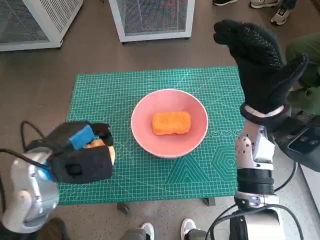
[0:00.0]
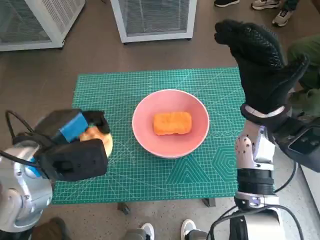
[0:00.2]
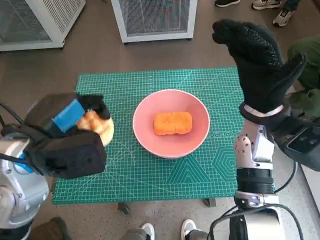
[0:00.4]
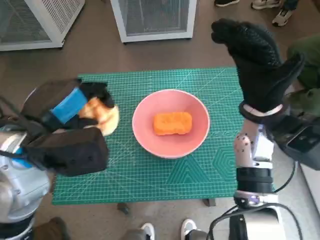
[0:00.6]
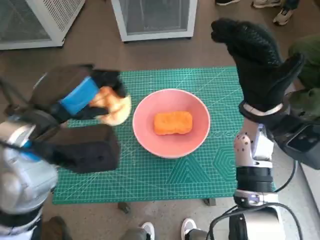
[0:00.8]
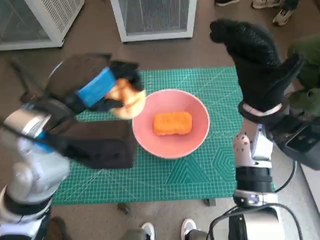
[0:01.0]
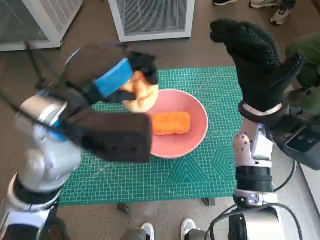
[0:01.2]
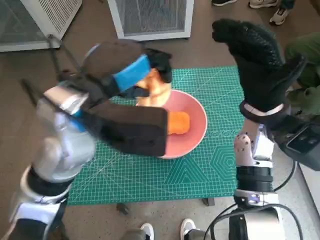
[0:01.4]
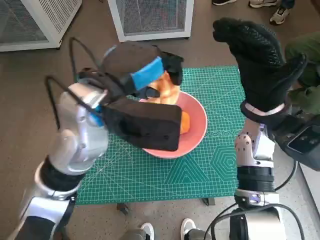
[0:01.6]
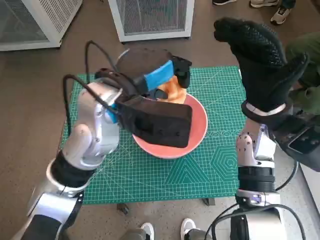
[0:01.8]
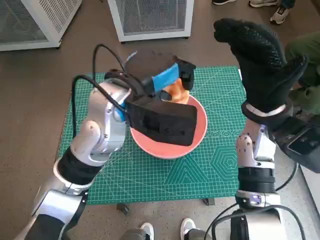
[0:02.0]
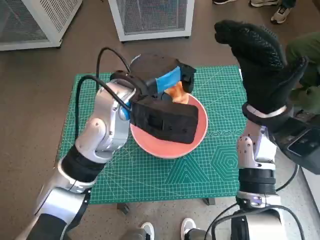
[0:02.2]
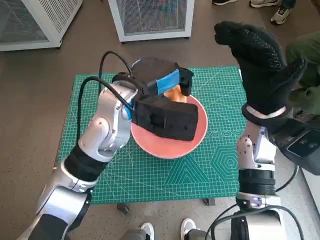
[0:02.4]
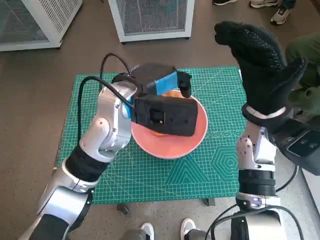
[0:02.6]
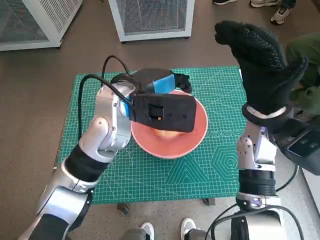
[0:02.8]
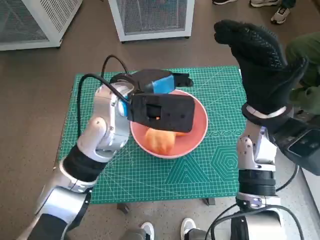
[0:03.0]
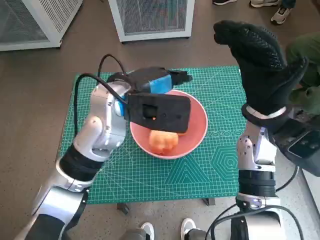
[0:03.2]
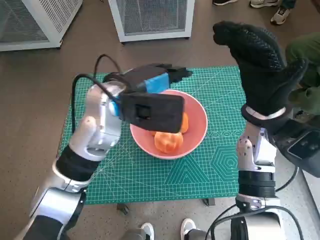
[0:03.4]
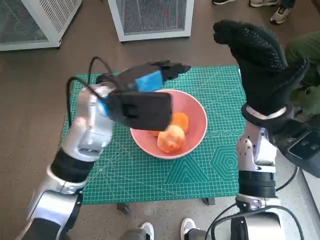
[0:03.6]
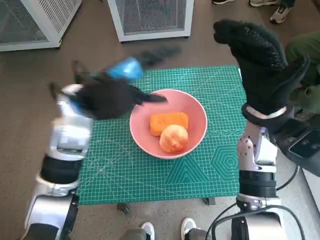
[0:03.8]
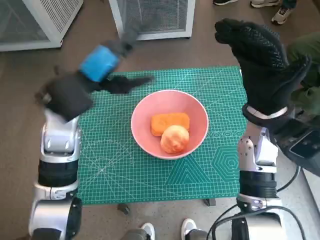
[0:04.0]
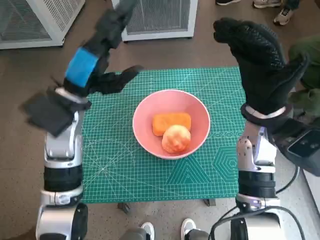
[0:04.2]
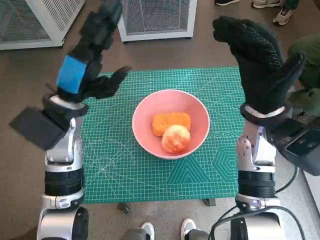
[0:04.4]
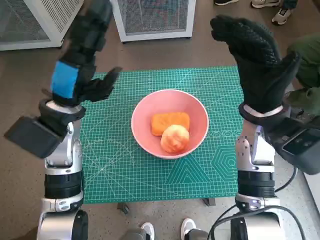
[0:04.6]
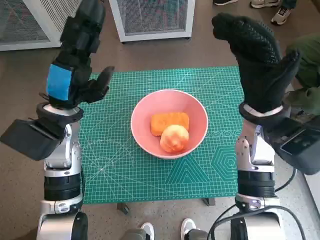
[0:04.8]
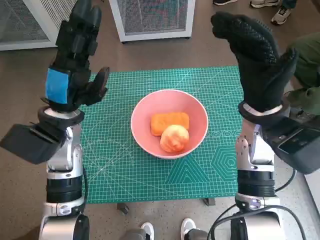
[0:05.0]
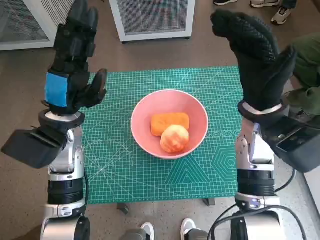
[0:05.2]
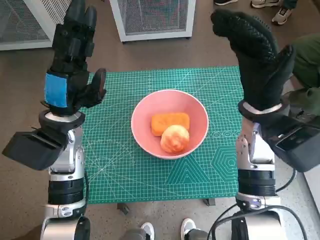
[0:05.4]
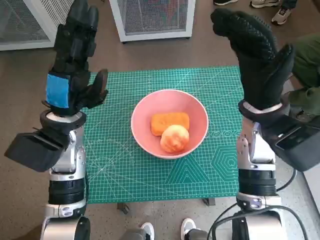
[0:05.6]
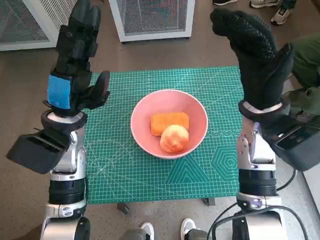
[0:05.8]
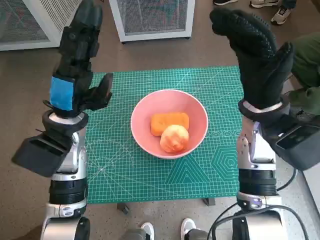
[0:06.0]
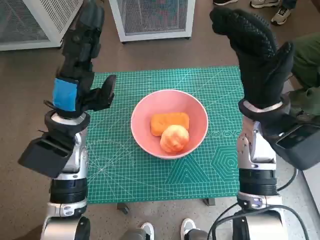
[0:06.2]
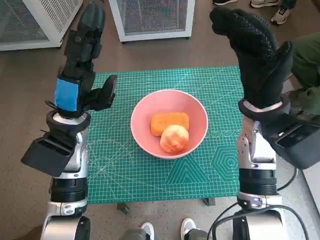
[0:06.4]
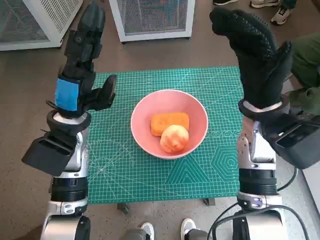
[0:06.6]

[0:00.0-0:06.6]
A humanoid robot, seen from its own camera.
Task of the whole recording: Push the bowl into the center of the table and put the bread into the bowl.
Step, 0:00.0 to 0:02.8: Place the round bread in pink bowl with left hand.
0:00.0 to 0:01.6: The left hand moves upward and to the right, some 15 cm.
0:01.6 to 0:03.2: The left hand moves roughly 5 cm.
0:03.2 to 0:05.0: The left hand is displaced to the left by roughly 10 cm.
0:05.0 to 0:06.6: The hands move only a little.

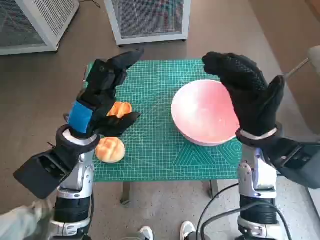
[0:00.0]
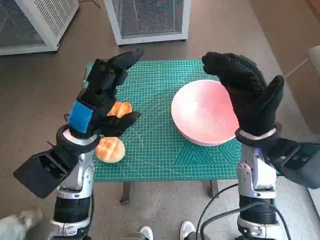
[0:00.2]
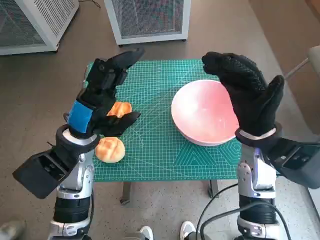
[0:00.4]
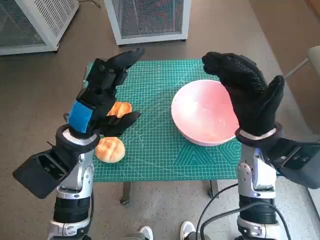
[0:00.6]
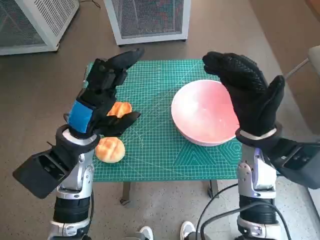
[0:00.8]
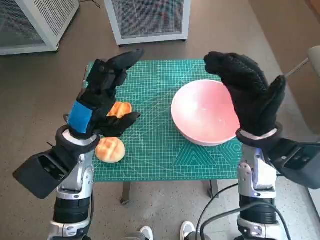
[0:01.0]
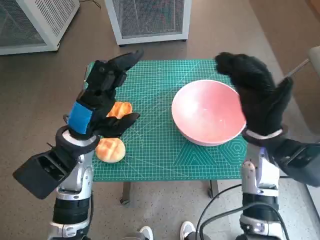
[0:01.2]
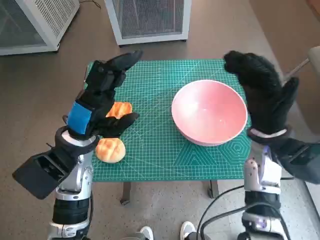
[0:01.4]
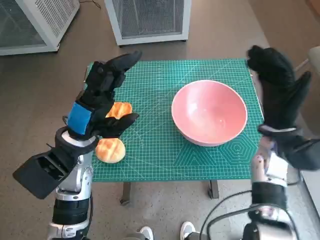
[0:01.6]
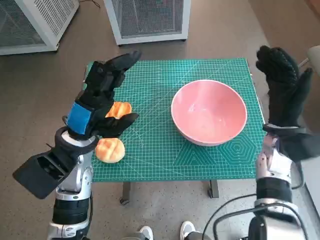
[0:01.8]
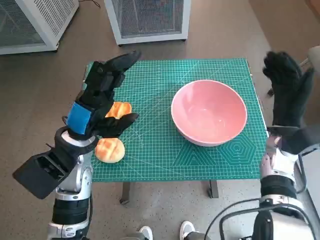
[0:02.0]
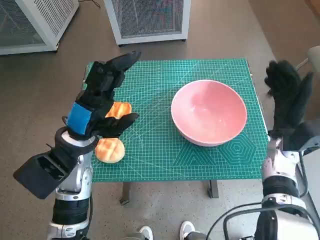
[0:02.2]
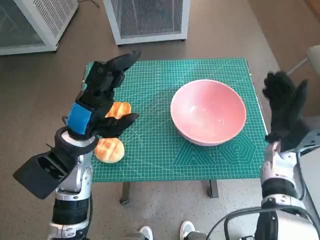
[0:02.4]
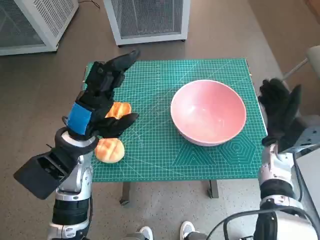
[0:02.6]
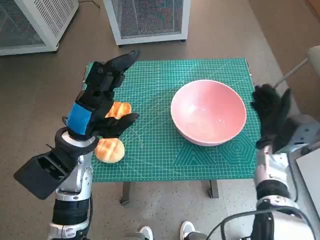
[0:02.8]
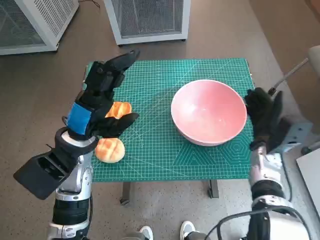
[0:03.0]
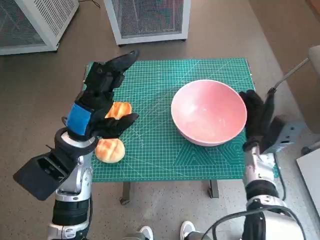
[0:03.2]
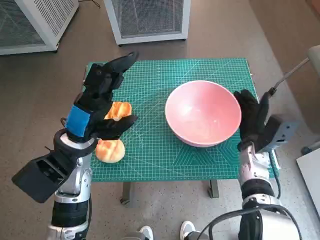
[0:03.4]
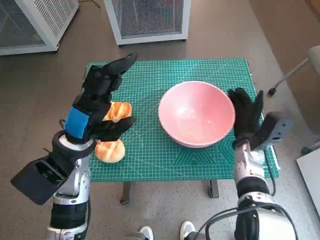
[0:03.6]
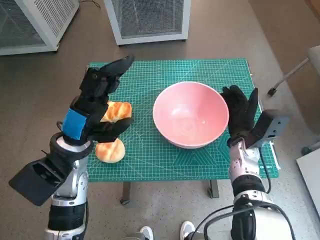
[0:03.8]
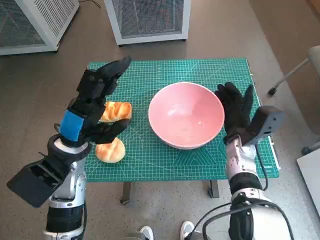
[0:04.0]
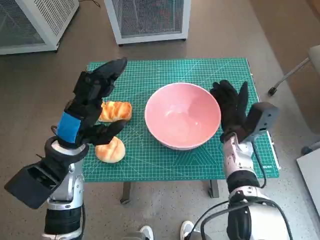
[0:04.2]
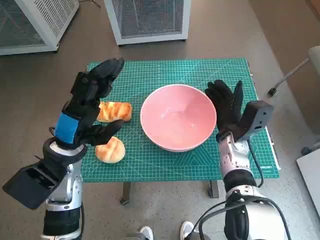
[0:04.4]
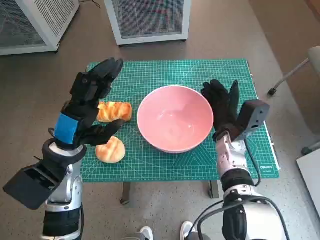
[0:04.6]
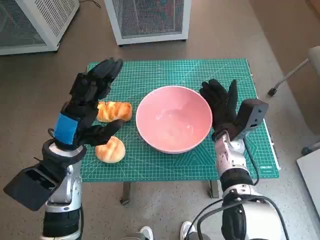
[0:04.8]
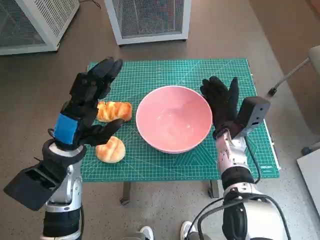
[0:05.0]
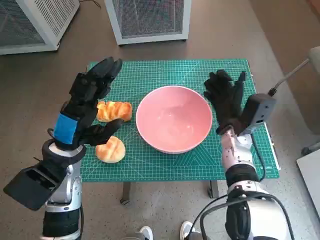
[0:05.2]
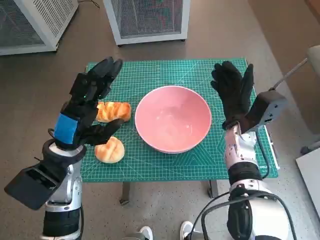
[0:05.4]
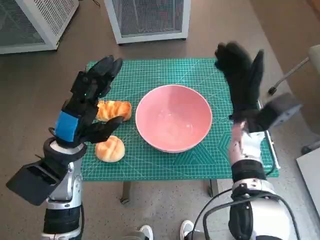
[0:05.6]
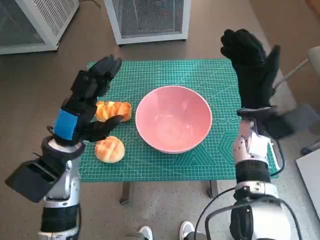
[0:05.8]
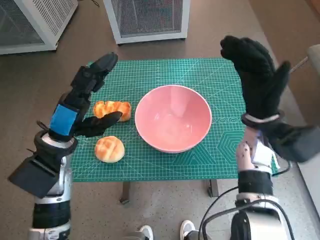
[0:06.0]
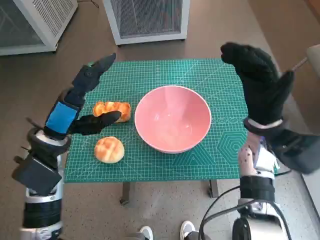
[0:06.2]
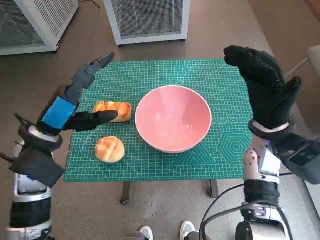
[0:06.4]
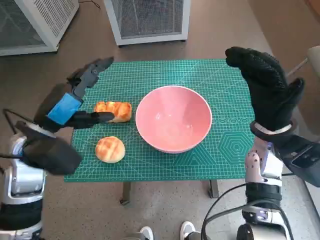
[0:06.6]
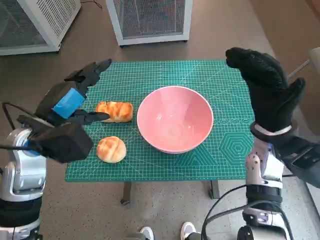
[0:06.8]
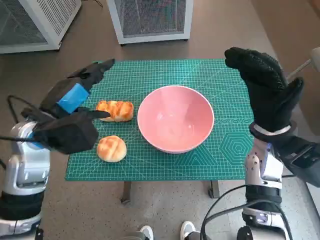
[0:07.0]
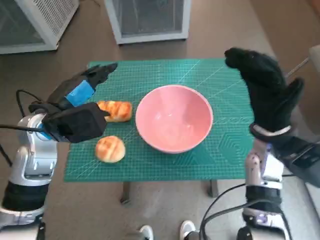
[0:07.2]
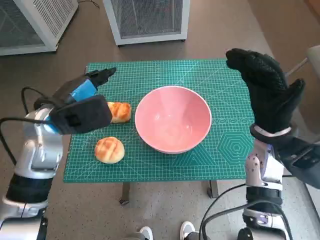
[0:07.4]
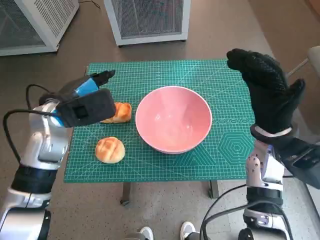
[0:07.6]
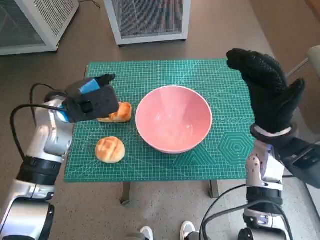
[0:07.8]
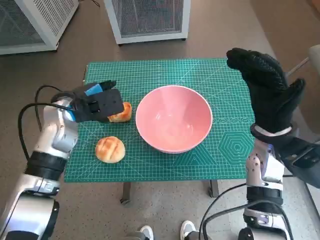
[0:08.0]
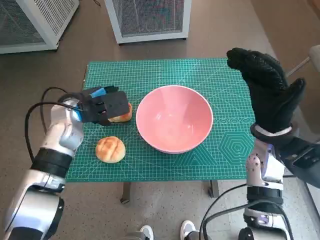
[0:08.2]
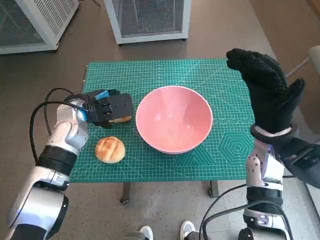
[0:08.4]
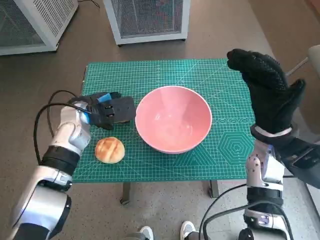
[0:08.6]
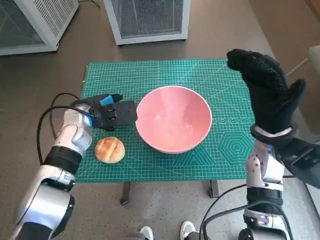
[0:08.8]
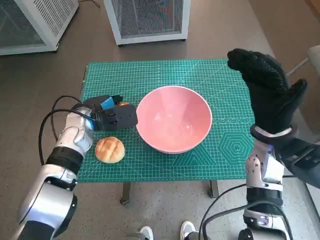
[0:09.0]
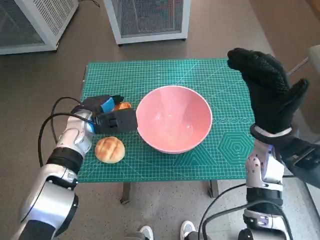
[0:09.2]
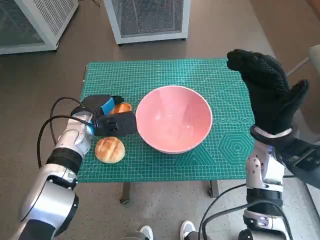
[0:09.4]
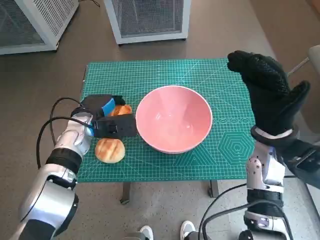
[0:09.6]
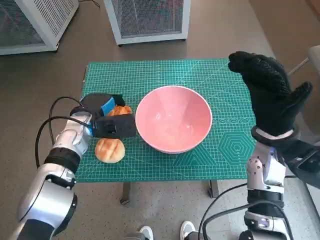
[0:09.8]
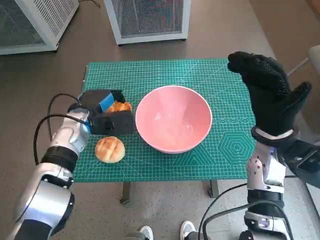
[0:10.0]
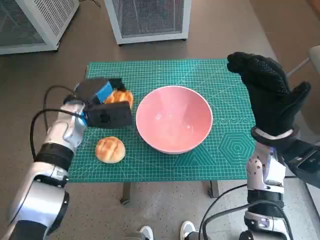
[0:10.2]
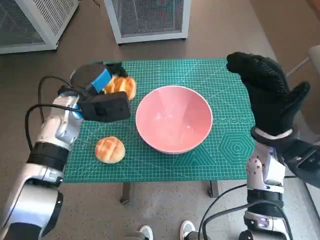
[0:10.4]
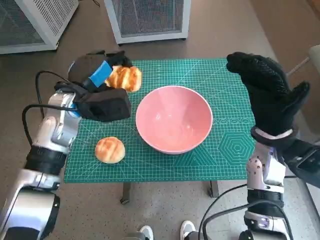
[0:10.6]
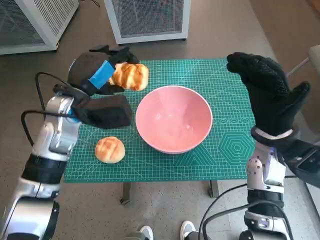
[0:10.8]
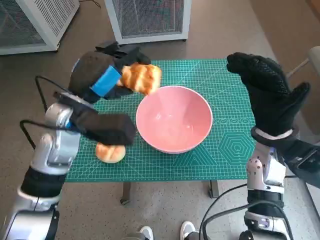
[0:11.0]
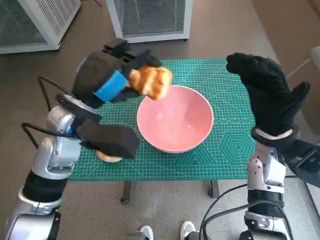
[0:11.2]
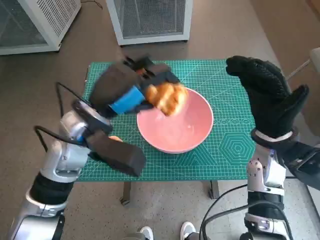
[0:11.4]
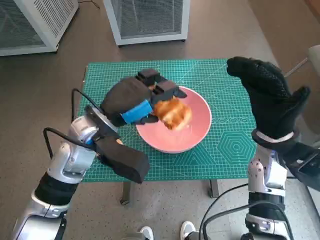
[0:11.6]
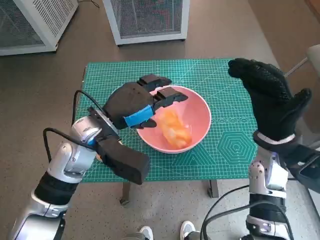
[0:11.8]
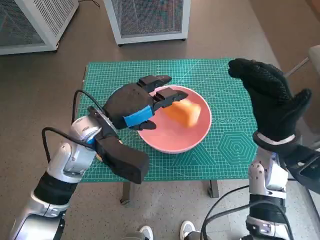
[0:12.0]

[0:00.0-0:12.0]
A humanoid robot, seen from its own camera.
Task of the whole recording: Push the bowl into the center of the table and put the bread into the bowl.
Step, 0:00.0 to 0:05.2: Move the pink bowl to the center of table with right hand.
Step, 0:05.4 to 0:09.4: Grasp the long bread with left hand.
Step, 0:09.6 to 0:11.8: Place the long bread in pink bowl with left hand.
0:01.6 to 0:03.0: The right hand moves downward, about 10 cm.
0:03.0 to 0:04.4: The right hand travels to the left by roughly 10 cm.
0:04.4 to 0:06.0: The right hand heads upward, covering some 10 cm.
0:06.0 to 0:07.6: The left hand goes about 5 cm forward.
0:07.6 to 0:09.0: The left hand travels downward by about 10 cm.
0:10.4 to 0:12.0: The left hand travels backward and to the right by roughly 10 cm.

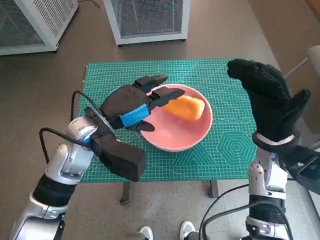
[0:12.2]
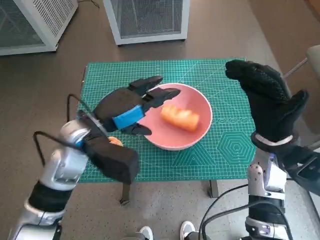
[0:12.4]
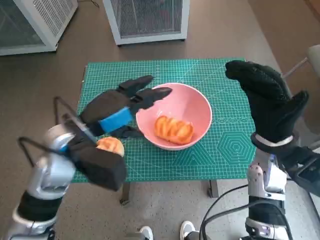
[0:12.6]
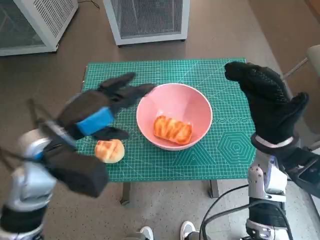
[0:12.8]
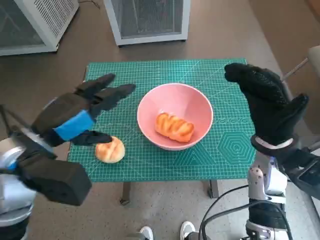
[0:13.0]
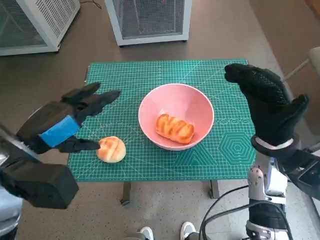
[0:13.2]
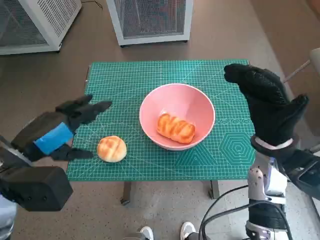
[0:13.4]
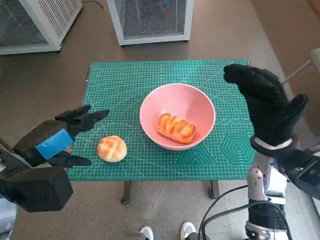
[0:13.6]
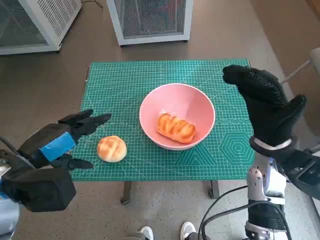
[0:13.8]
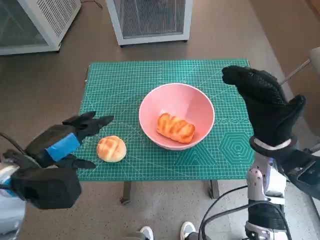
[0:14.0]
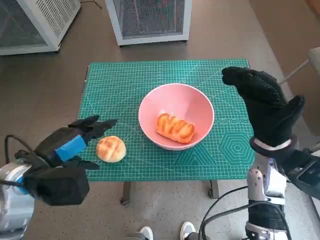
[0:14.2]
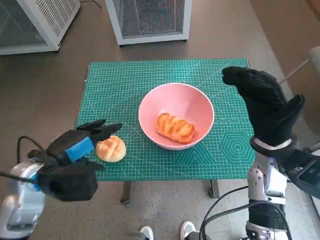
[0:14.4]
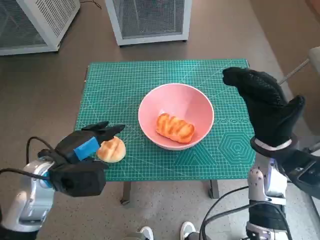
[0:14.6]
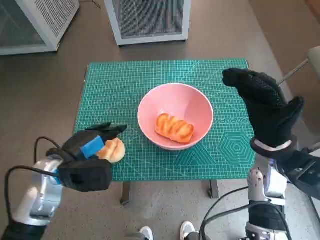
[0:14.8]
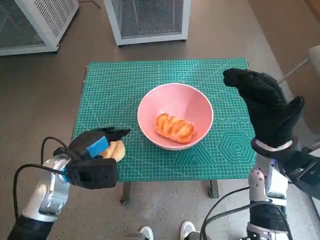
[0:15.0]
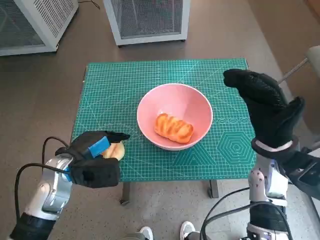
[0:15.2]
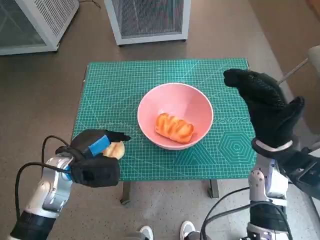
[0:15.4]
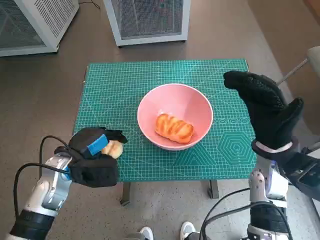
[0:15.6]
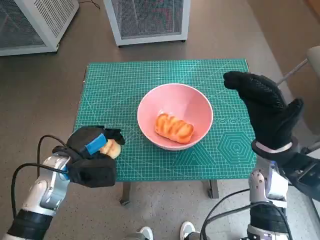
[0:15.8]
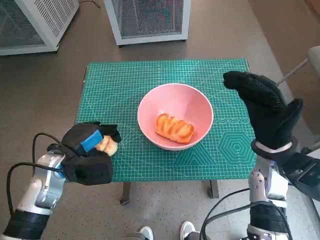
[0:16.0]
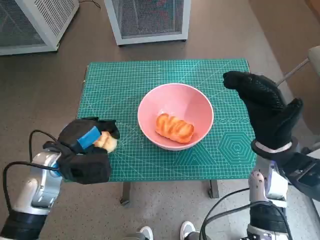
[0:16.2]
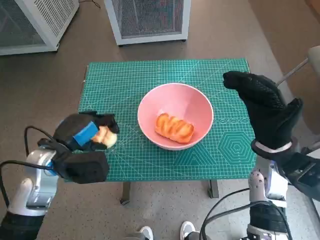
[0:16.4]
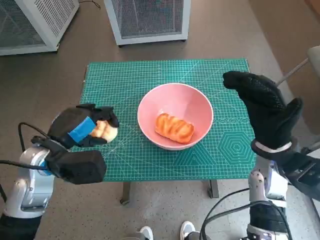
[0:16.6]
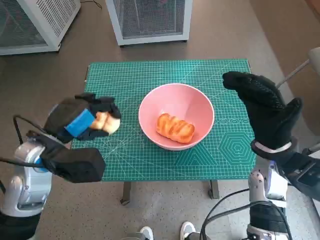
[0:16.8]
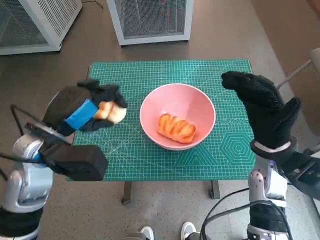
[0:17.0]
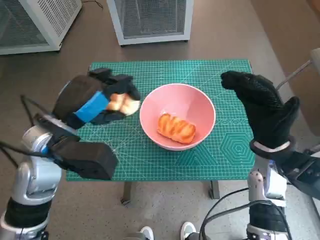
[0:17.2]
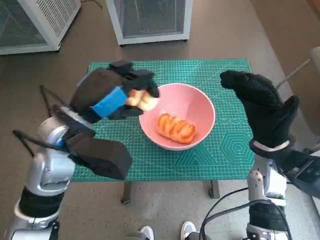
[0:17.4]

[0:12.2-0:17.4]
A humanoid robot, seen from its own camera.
Task of the whole recording: Push the bowl into the center of the table and put the bread into the bowl.
Step, 0:12.2 to 0:15.2: Grasp the round bread with left hand.
0:12.2 to 0:14.0: The left hand is displaced to the left and backward by roughly 15 cm.
0:14.0 to 0:15.6: The left hand goes approximately 10 cm downward and forward.
0:15.6 to 0:17.4: The left hand moves upward and to the right, about 15 cm.
